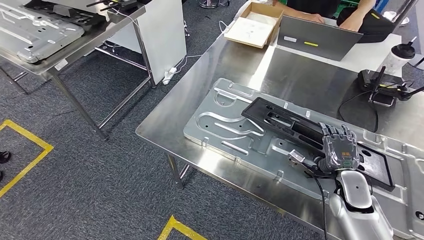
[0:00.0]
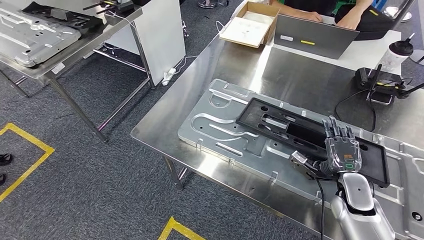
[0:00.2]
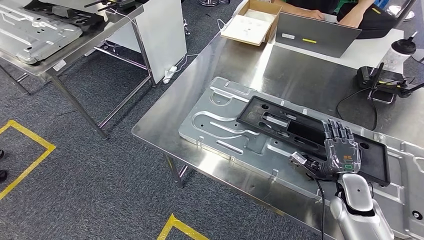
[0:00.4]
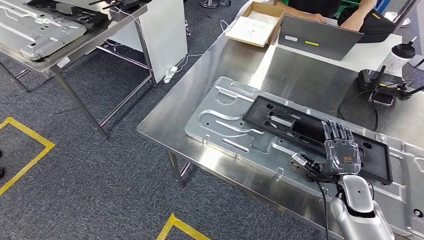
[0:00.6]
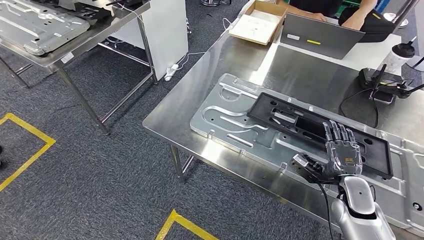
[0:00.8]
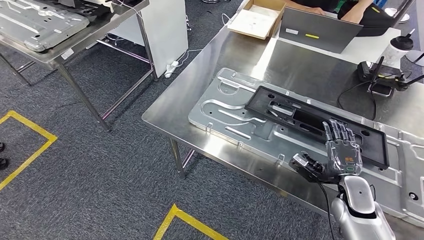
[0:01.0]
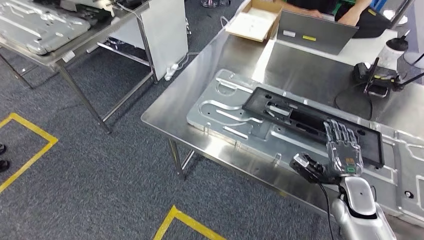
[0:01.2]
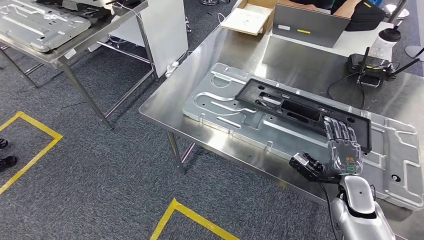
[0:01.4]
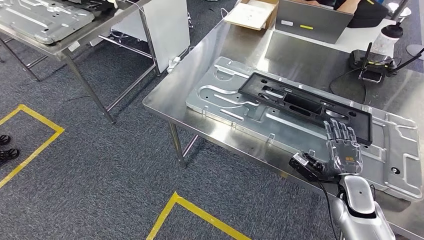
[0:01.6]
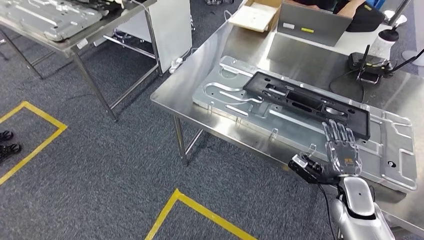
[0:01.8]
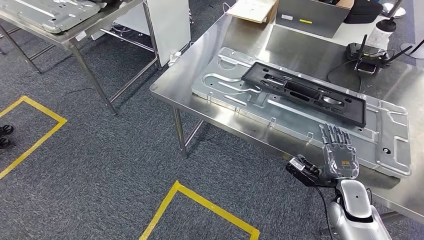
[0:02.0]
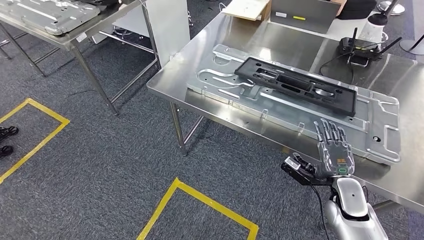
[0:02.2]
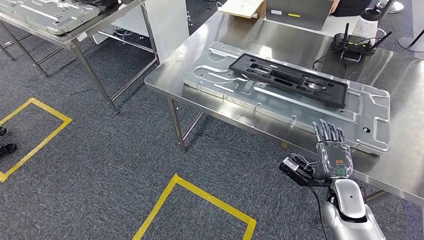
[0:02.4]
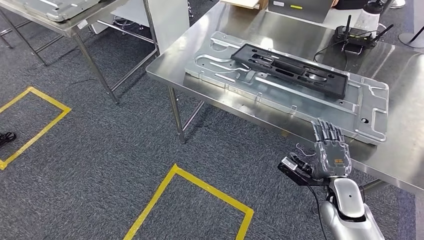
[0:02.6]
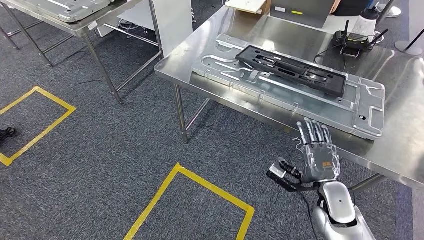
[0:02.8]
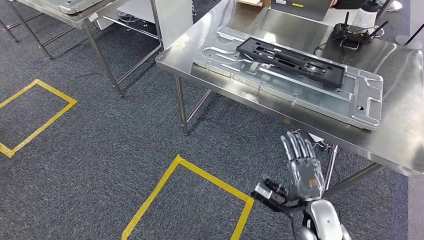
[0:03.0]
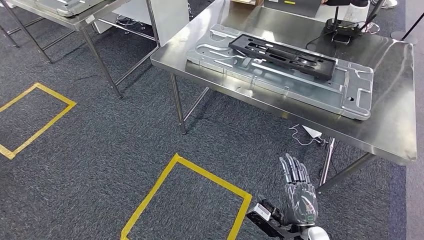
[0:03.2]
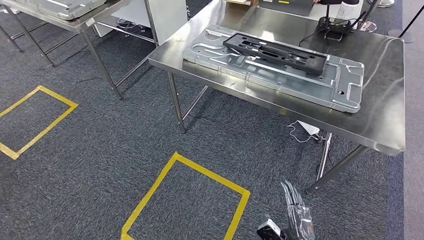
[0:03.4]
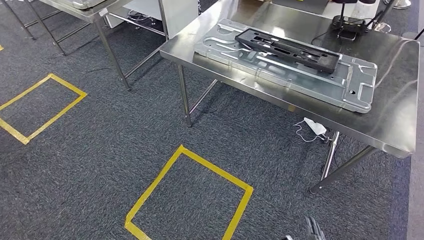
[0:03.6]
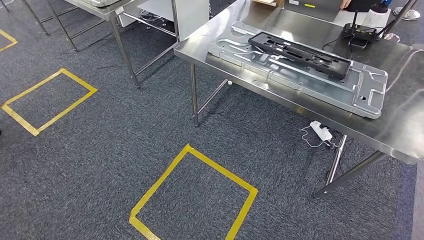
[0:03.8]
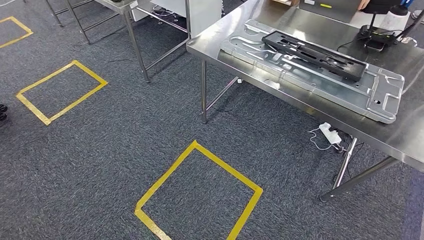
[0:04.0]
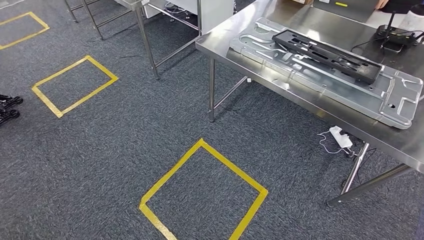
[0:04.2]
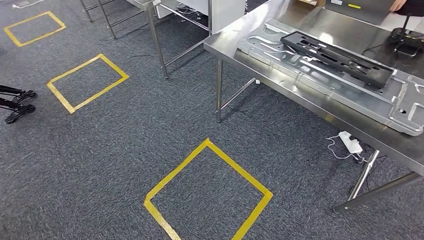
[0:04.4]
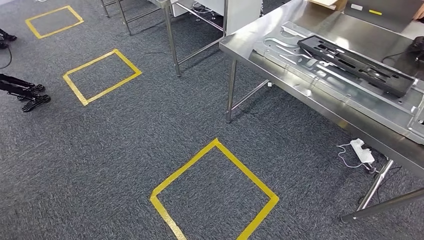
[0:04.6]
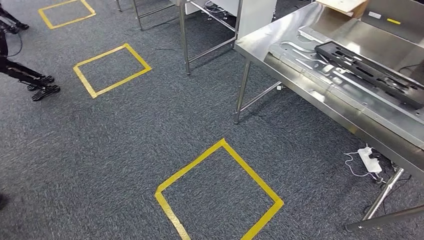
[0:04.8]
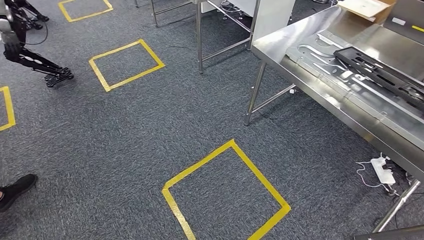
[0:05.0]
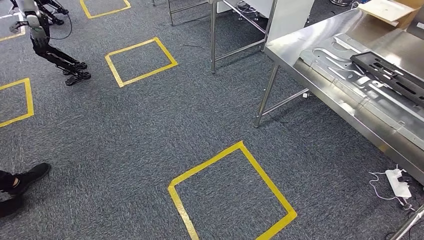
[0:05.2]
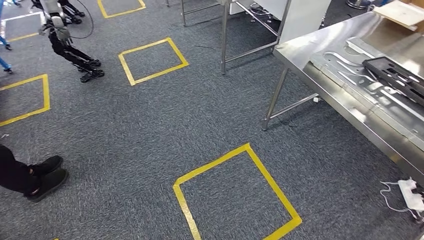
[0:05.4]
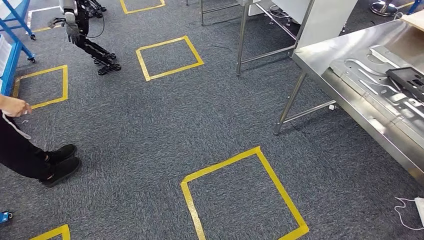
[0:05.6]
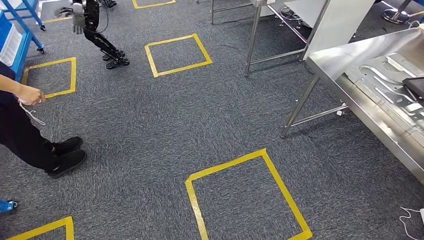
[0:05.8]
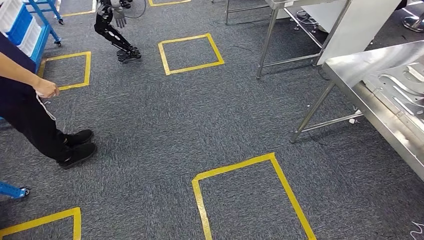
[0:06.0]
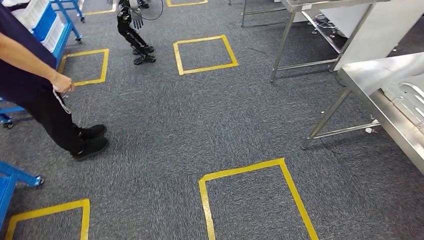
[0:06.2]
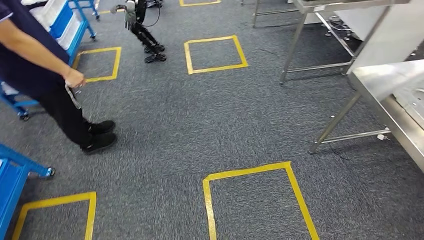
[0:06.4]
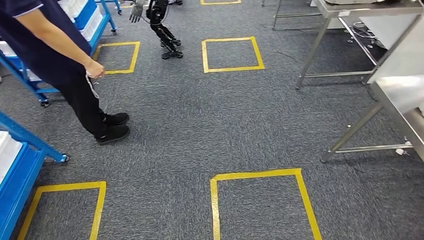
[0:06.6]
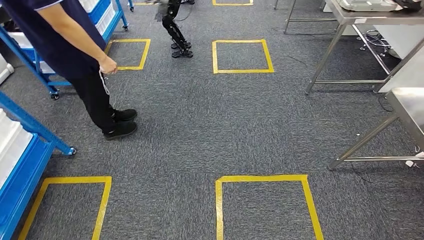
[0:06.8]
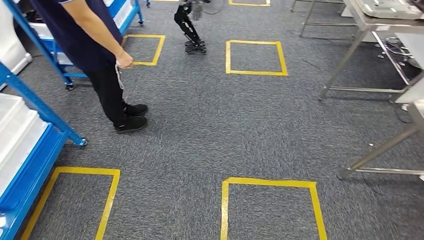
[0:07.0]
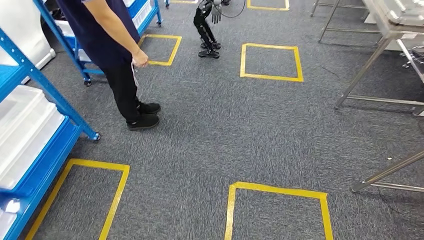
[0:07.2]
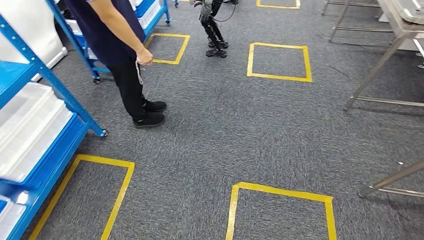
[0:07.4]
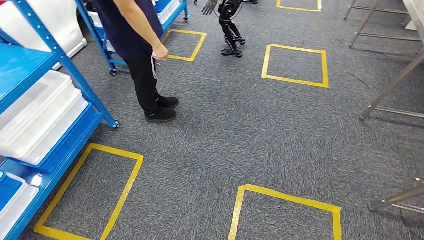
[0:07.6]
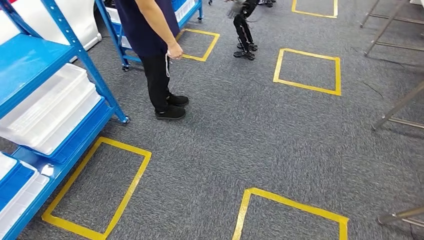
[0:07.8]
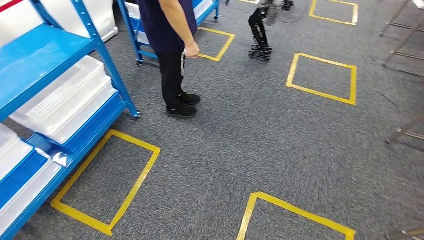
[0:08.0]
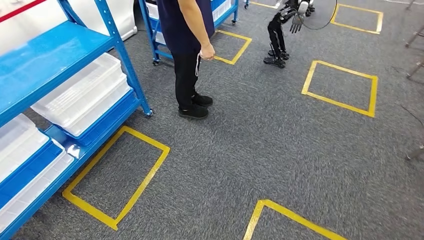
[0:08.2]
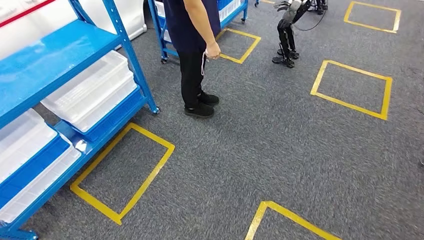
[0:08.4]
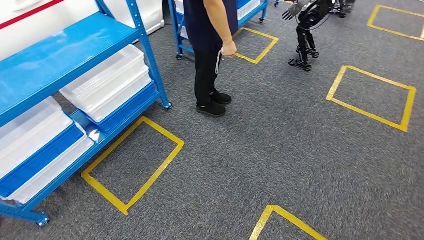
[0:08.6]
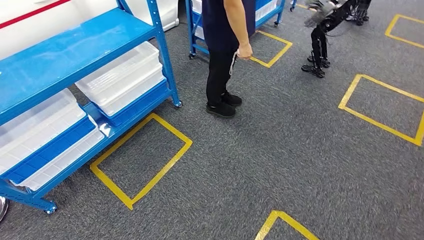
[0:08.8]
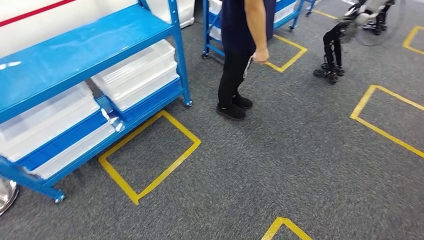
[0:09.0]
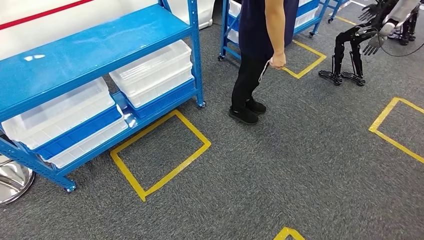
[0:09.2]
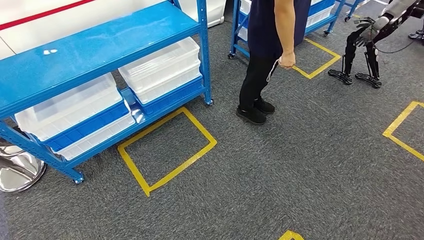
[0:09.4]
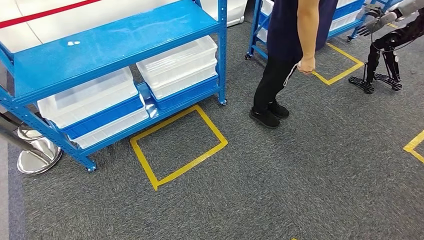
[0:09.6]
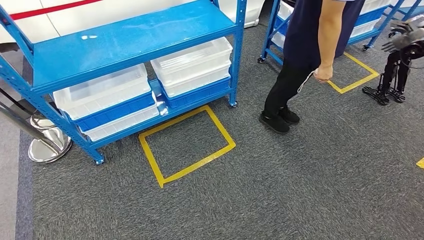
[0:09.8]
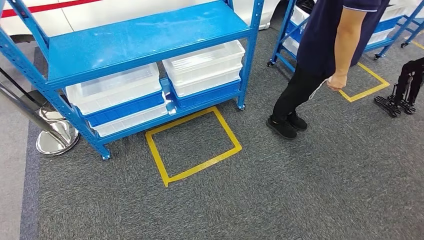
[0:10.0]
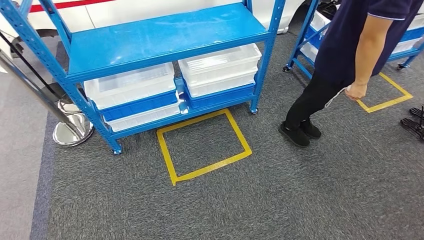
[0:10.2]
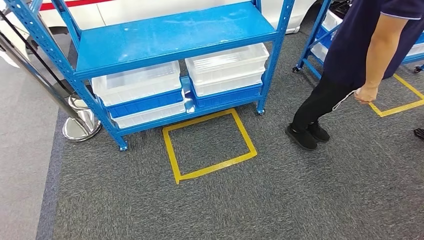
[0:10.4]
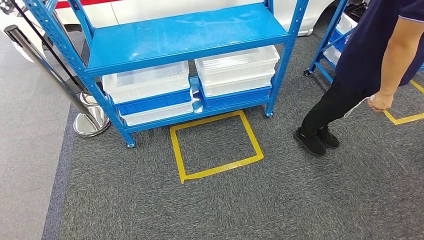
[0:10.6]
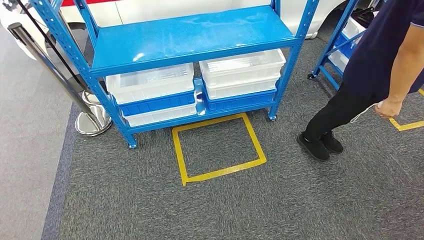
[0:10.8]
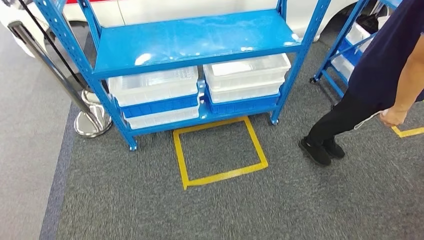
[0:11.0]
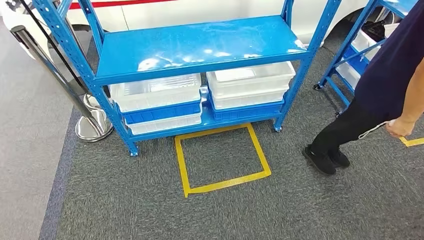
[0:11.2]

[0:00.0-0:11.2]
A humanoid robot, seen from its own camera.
Step, 0:00.0 to 0:02.8: Insert the large material into the corresponding slot on the workbench.
Step, 0:03.0 to 0:11.0: Move to the initial position of the shelf.
